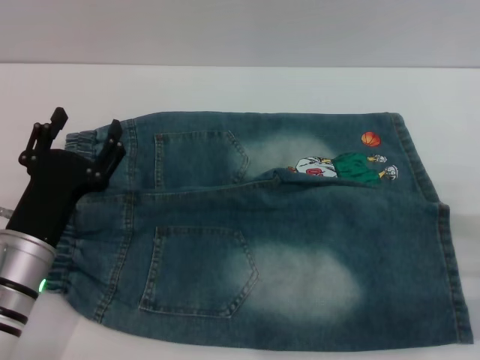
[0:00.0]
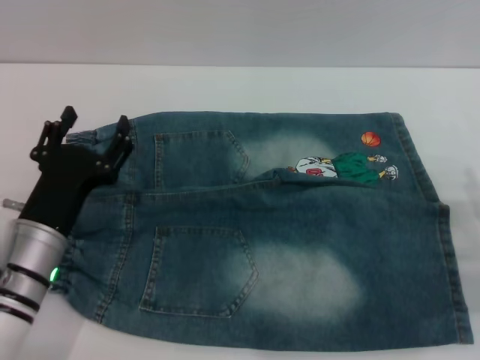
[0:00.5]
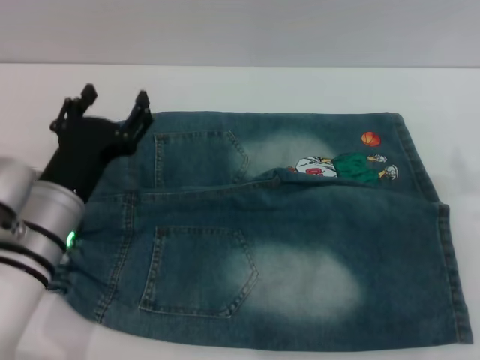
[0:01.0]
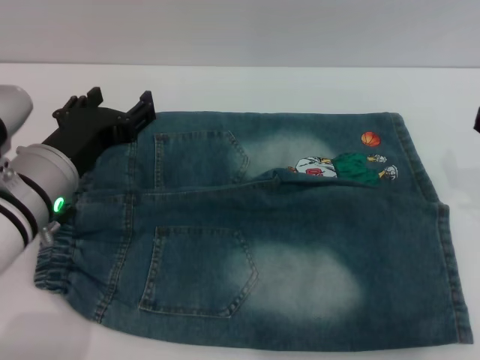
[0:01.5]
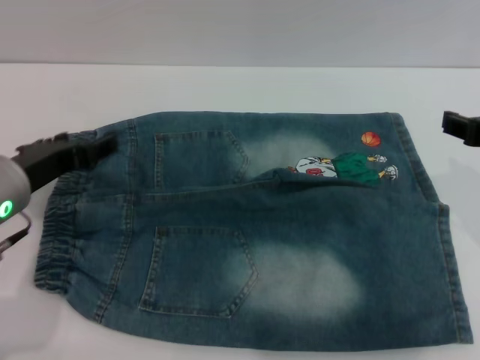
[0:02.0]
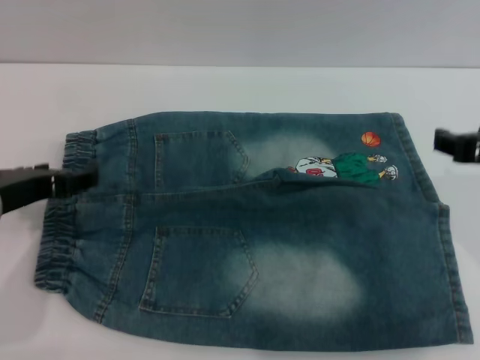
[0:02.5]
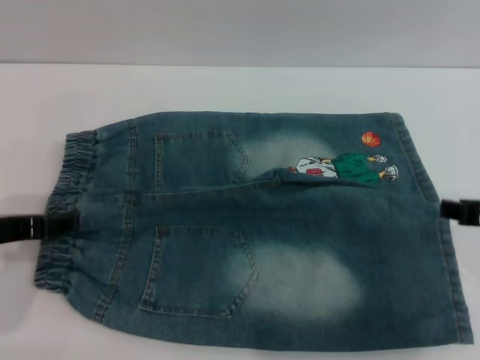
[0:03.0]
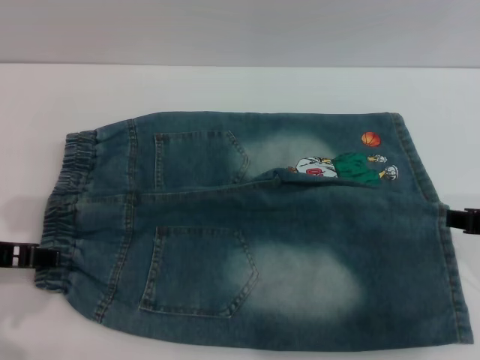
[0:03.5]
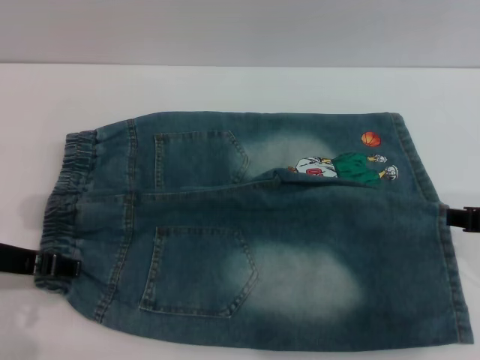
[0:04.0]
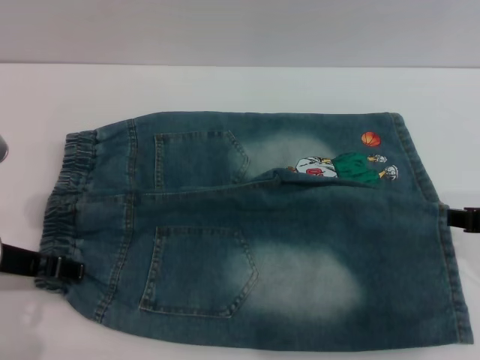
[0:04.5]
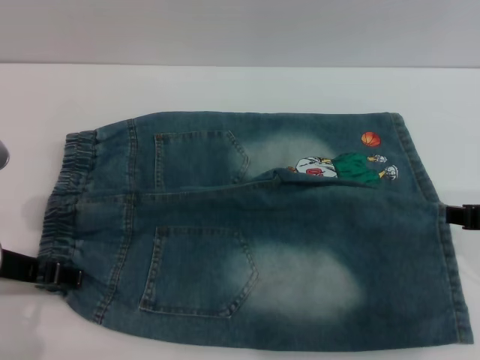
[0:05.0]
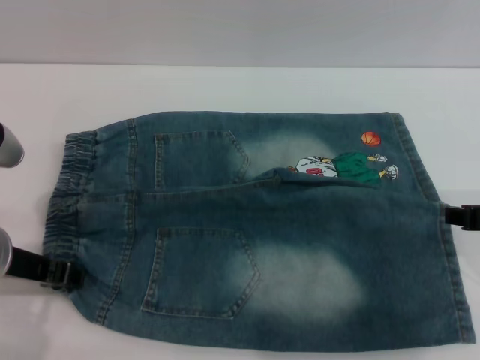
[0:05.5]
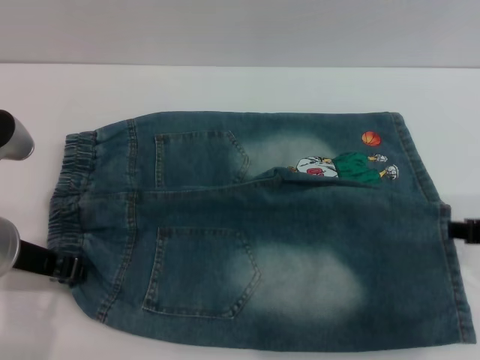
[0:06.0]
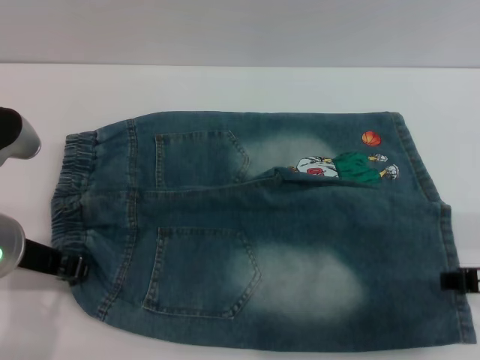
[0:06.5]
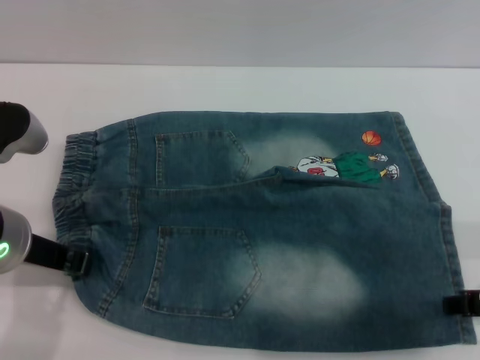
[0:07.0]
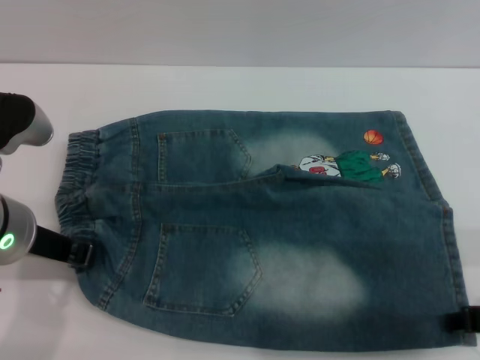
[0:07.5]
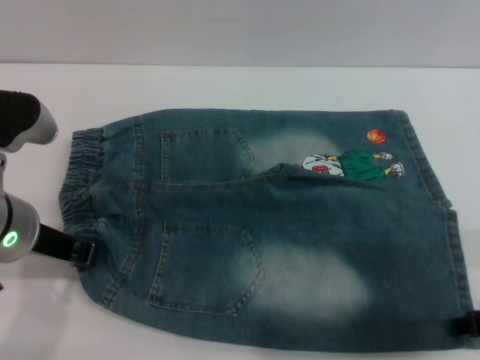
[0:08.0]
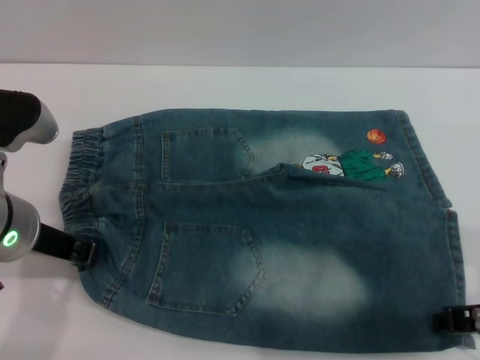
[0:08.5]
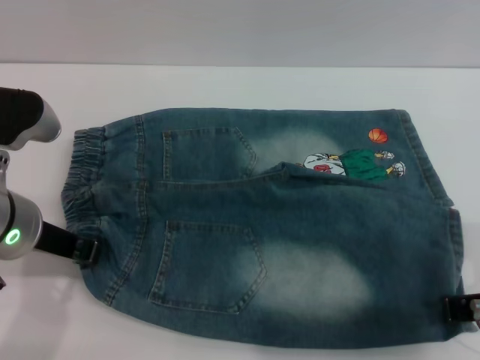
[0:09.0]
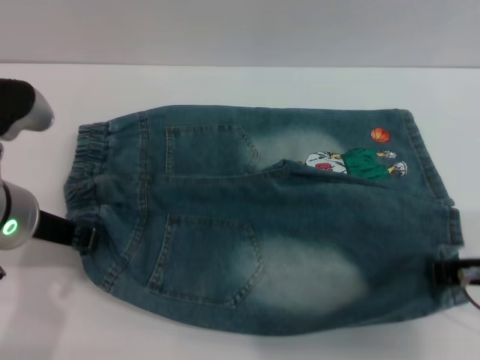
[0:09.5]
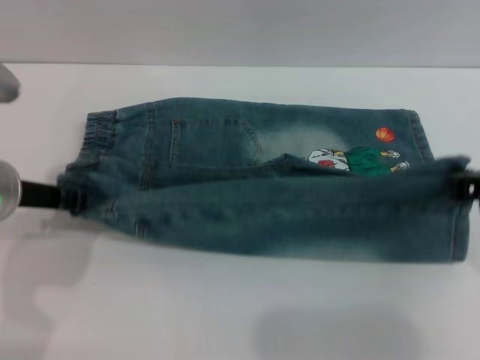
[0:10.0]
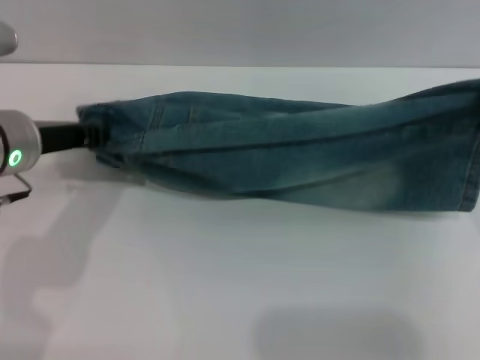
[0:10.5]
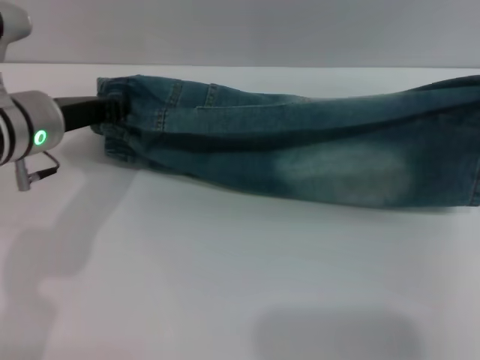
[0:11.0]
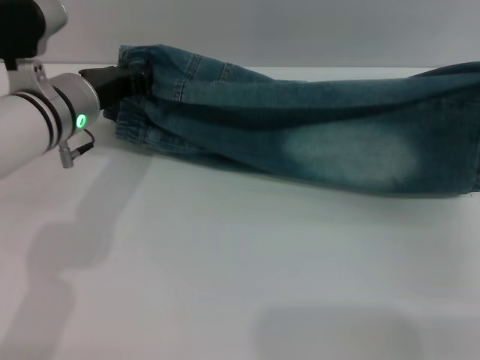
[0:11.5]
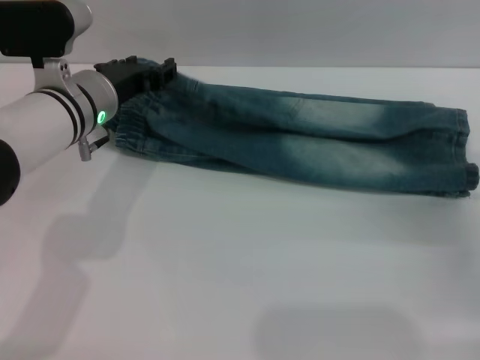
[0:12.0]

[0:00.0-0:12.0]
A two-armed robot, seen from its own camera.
0:00.0 to 0:02.0: The right gripper is displaced upward and to the left by roughly 20 cm; the left gripper moves upward, some 10 cm.
0:04.0 to 0:06.0: The grippers move only a little.
0:06.0 to 0:08.0: The grippers stay close to where they were, moving slightly.
0:08.0 to 0:10.0: The right gripper heads forward, covering roughly 5 cm, and closes up.
0:10.0 to 0:12.0: The left gripper moves forward and to the right, roughly 10 cm, and opens up. Meanwhile the right gripper shifts about 15 cm downward and to the right, and opens.

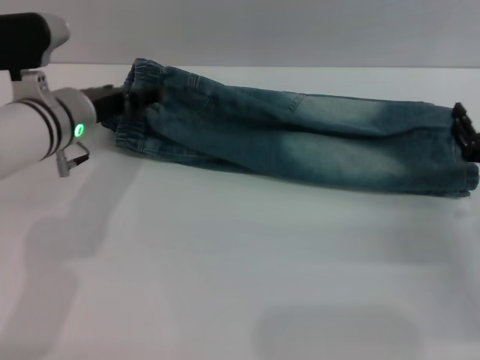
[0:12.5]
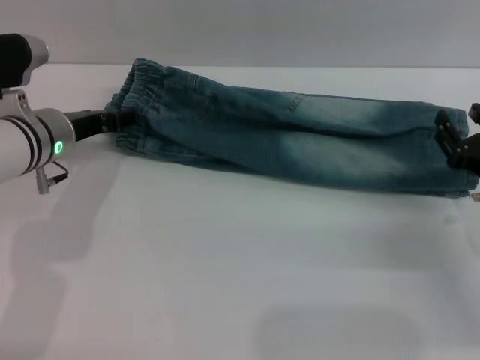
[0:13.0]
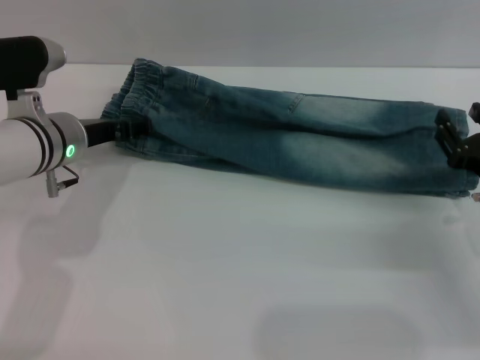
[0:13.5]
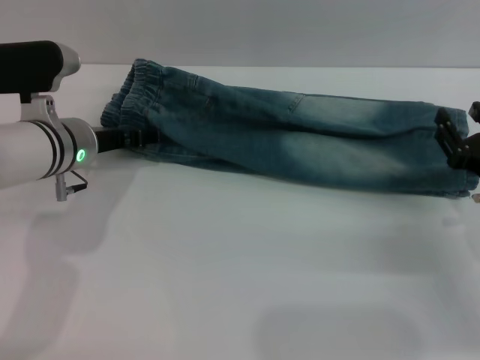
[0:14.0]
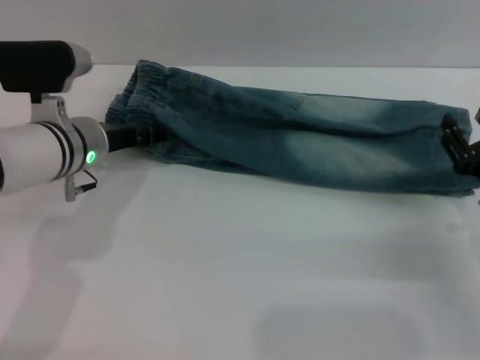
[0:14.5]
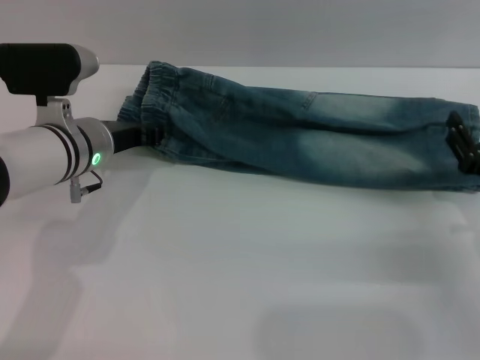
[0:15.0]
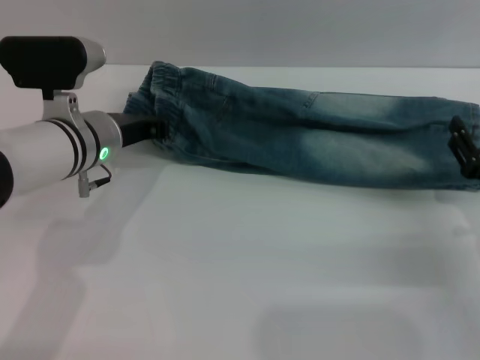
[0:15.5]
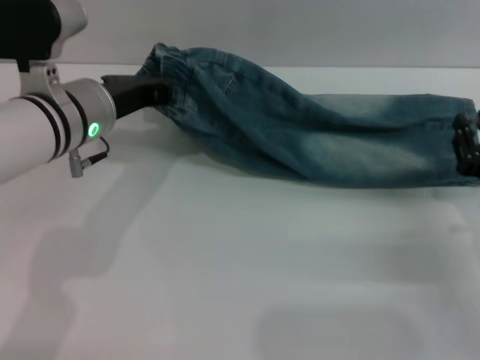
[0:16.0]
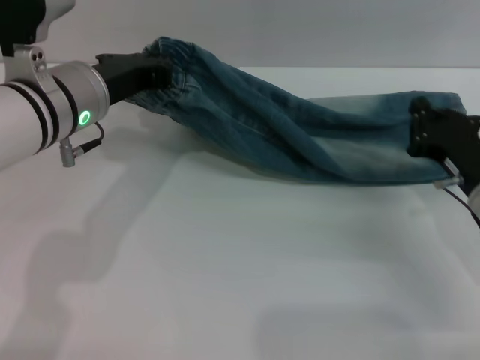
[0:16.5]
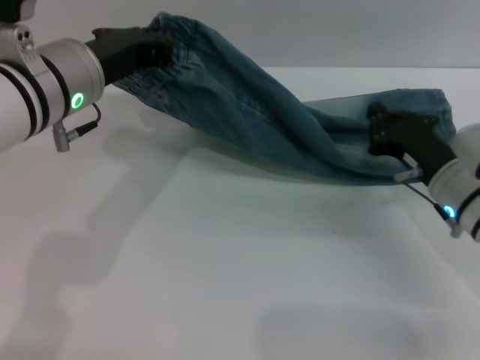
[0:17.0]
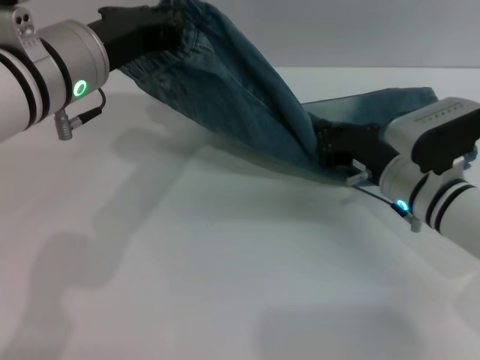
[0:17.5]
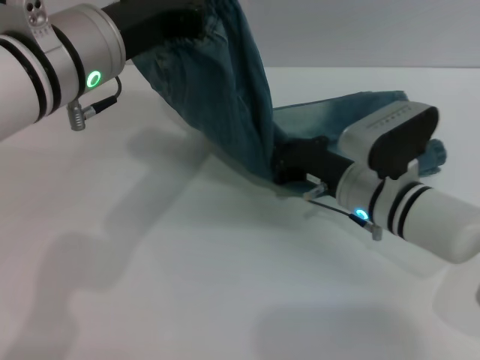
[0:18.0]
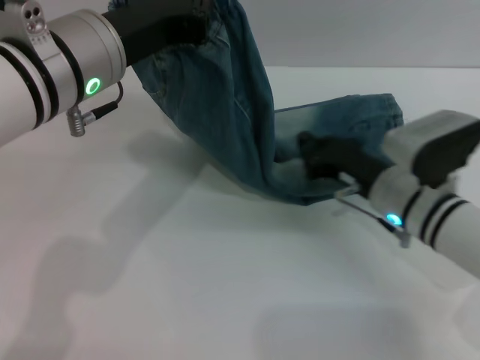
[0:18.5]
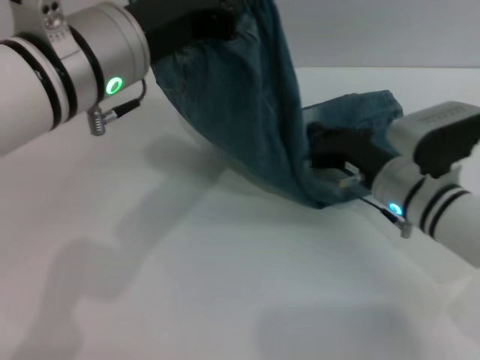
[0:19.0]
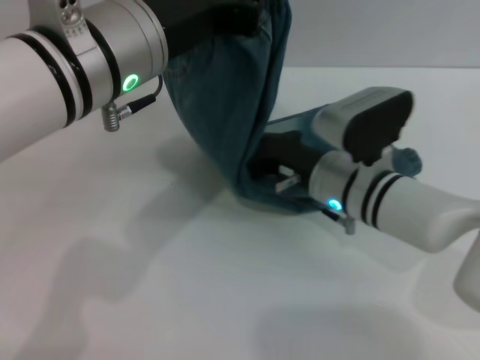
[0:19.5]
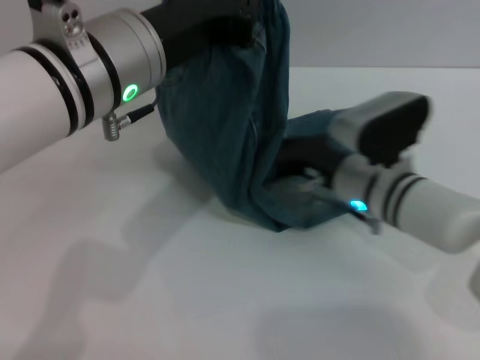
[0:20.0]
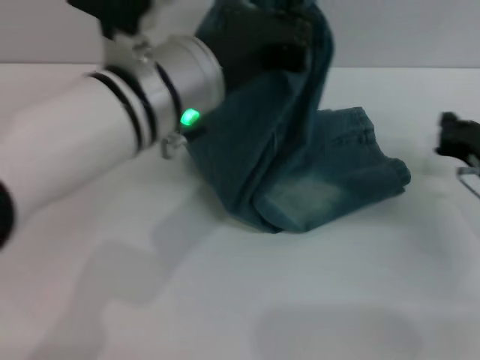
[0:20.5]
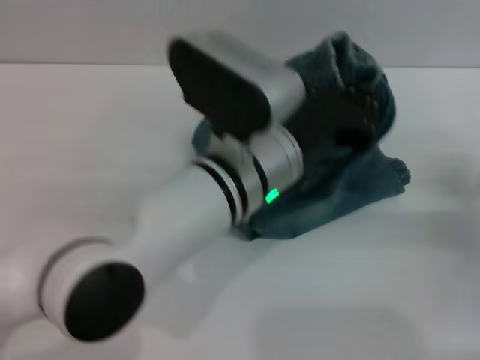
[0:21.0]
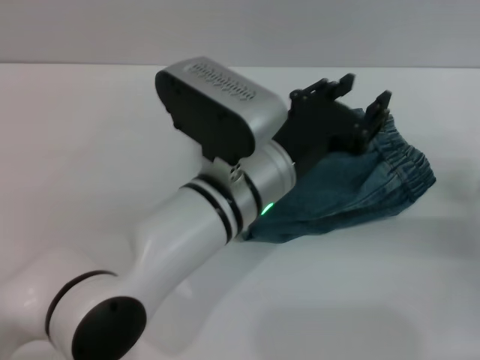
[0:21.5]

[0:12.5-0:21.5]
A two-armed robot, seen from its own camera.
Step, 0:12.5 to 0:21.0: Fold the pants from left to right with the left gripper.
0:12.5 to 0:14.5: The grippers stay close to where they were, moving slightly.
0:14.5 to 0:17.0: The right gripper travels to the left and forward by about 10 cm, and closes up. Meanwhile the left gripper is displaced upward by approximately 10 cm, and closes up.
0:17.0 to 0:19.5: The right gripper shifts roughly 10 cm to the left. Meanwhile the left gripper shifts some 5 cm to the right.
0:19.5 to 0:21.5: The left gripper shifts roughly 15 cm downward and to the right. Meanwhile the right gripper travels to the right by some 20 cm.

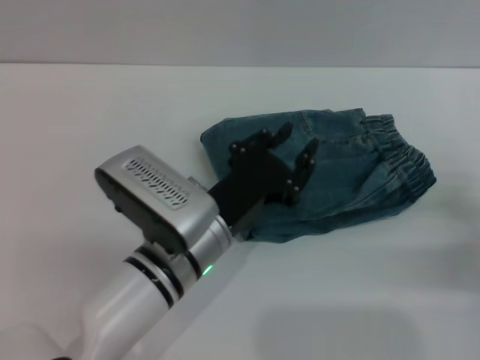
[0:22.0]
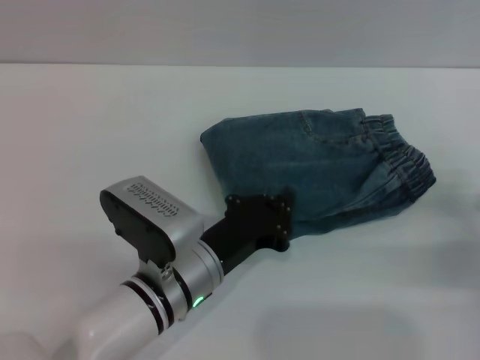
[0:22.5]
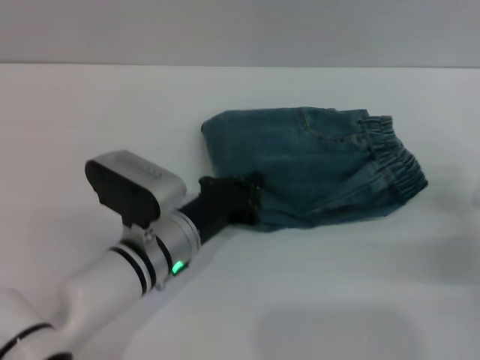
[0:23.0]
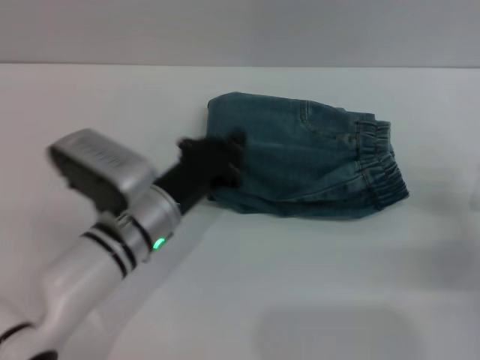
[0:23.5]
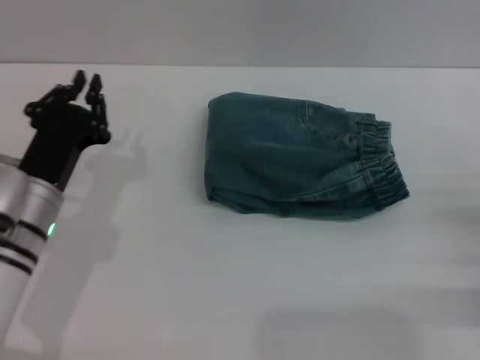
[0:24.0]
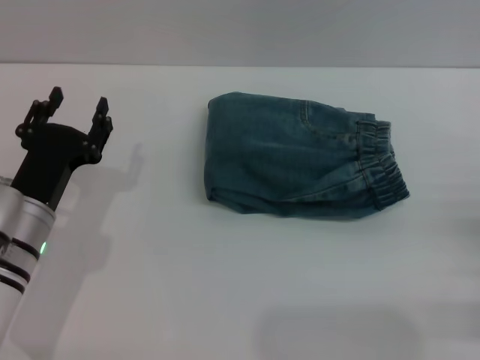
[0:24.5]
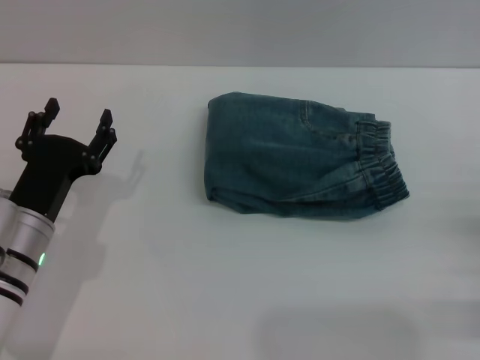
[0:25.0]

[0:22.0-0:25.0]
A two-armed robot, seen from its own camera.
Step, 0:22.0 to 0:23.5: Place the folded trousers onto the center area with the left grippers.
0:22.0 to 0:23.5: The left gripper ends up roughly 5 cm from where it was, and closes up.
0:23.5 to 0:25.0: The right gripper moves roughly 5 cm, and opens up; the left gripper moves to the left, some 10 cm, and opens.
